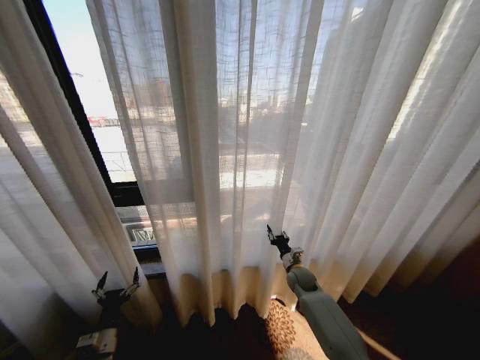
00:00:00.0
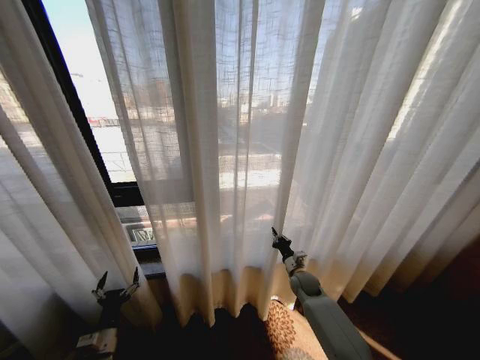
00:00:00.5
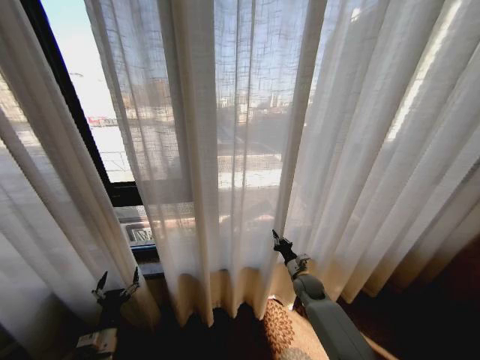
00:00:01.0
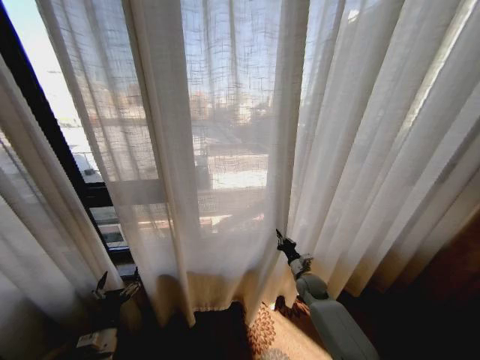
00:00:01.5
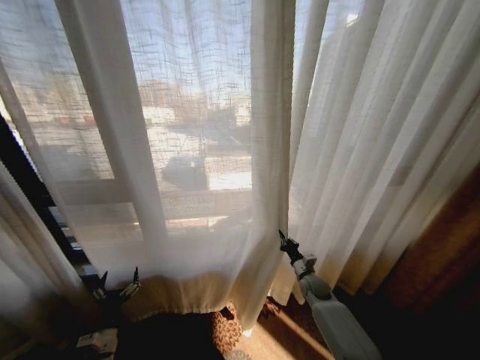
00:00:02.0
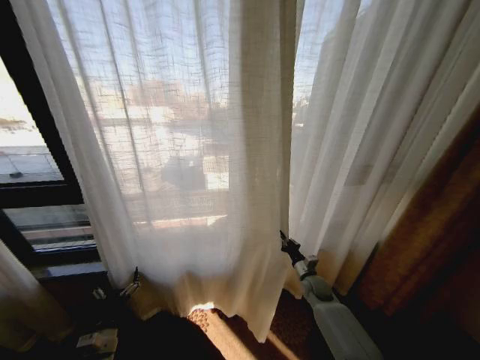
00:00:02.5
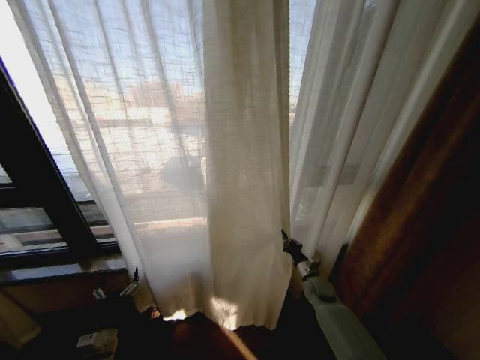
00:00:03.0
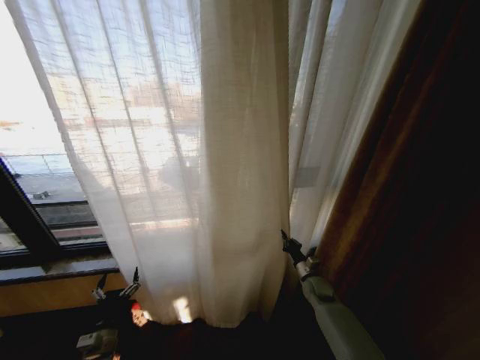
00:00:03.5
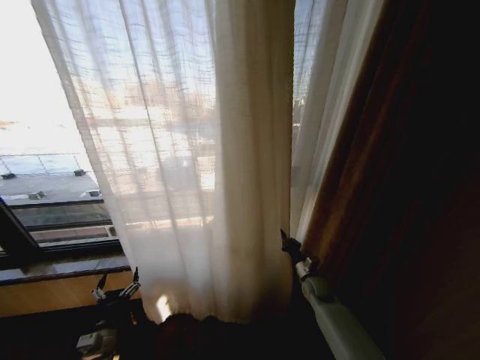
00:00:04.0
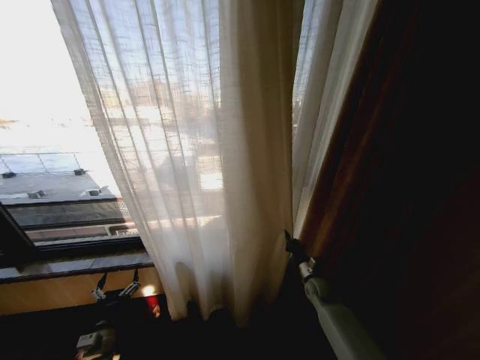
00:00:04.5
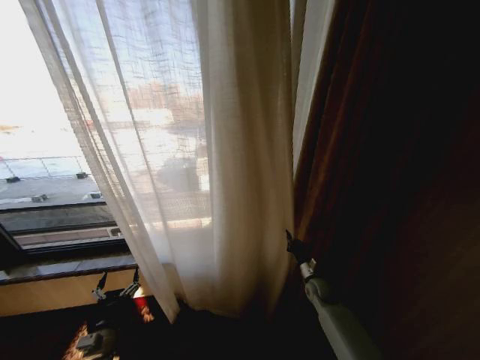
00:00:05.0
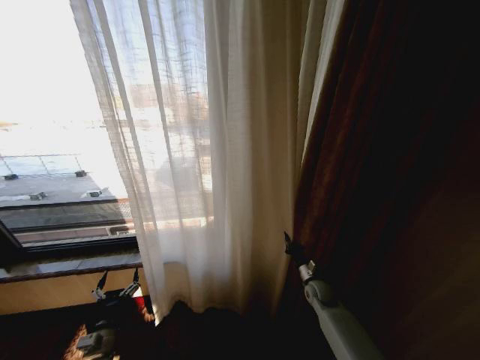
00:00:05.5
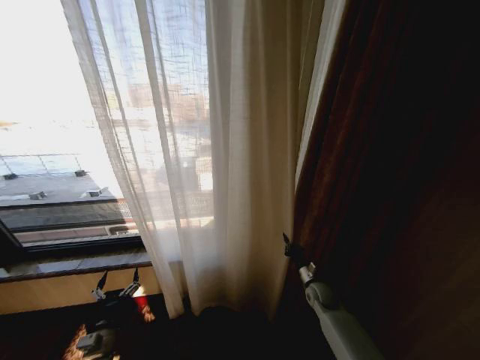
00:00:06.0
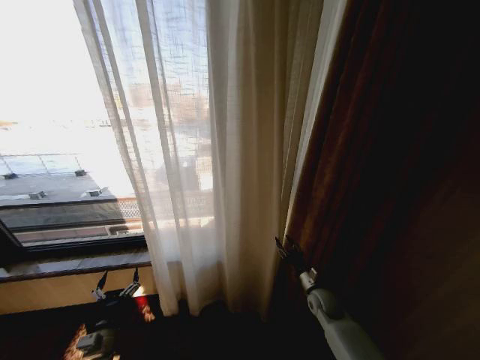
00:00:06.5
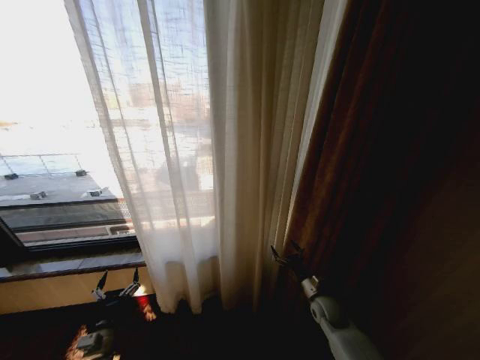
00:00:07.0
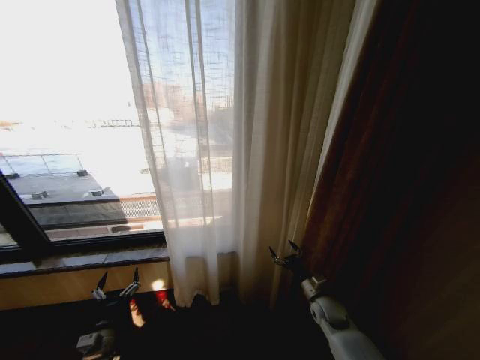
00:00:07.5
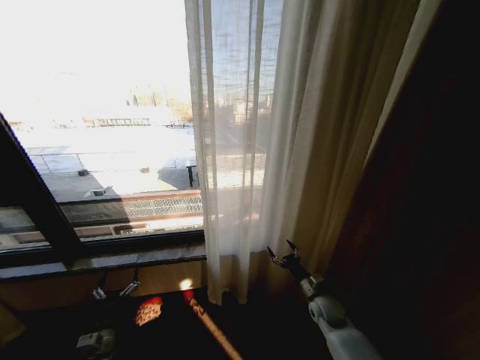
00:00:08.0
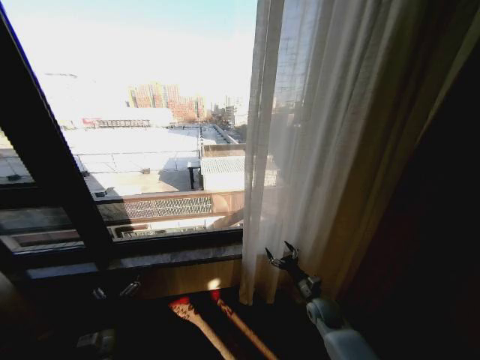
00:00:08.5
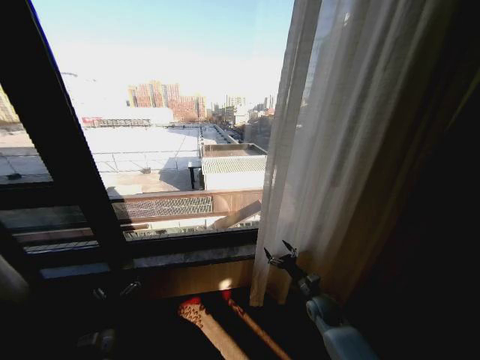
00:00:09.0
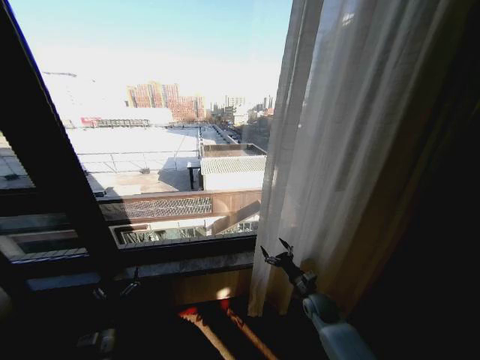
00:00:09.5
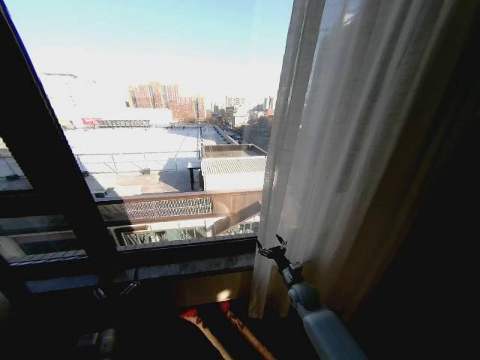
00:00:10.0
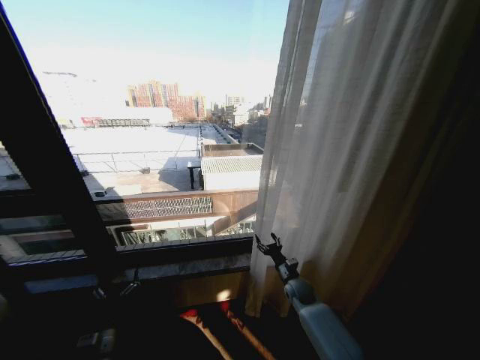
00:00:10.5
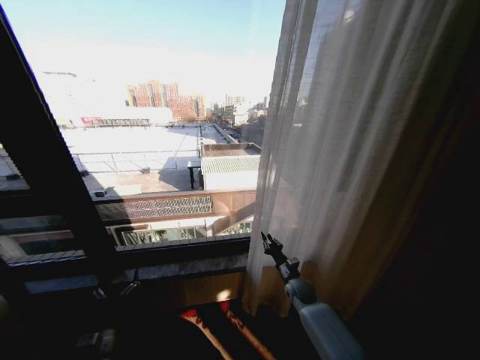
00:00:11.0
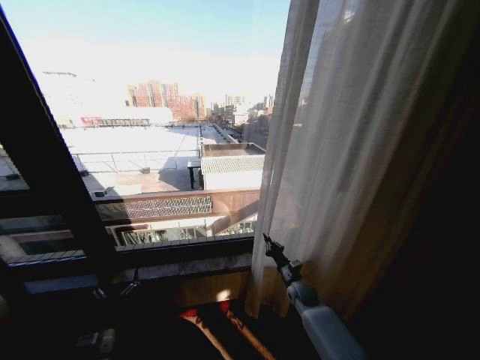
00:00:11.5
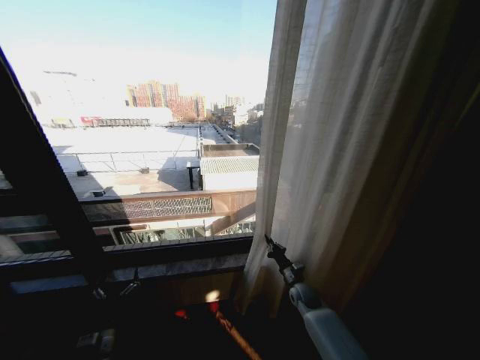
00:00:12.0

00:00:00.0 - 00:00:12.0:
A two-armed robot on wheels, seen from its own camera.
Task of the whole recording: Open the curtains by pulling them apart, changing their state from closed to fully open.
00:00:00.0 - 00:00:02.0: The right gripper ends up about 5 cm from where it was, and closes up.
00:00:06.0 - 00:00:08.0: The right gripper opens its fingers.
00:00:08.0 - 00:00:10.0: The right gripper is displaced to the left by some 5 cm.
00:00:10.0 - 00:00:12.0: The right gripper closes up.

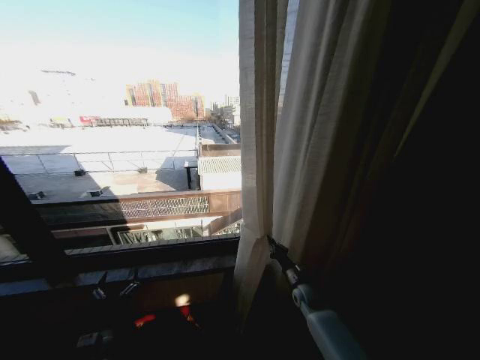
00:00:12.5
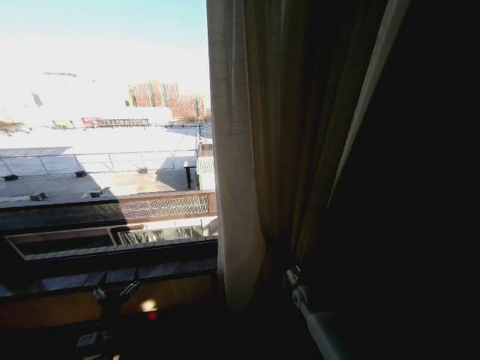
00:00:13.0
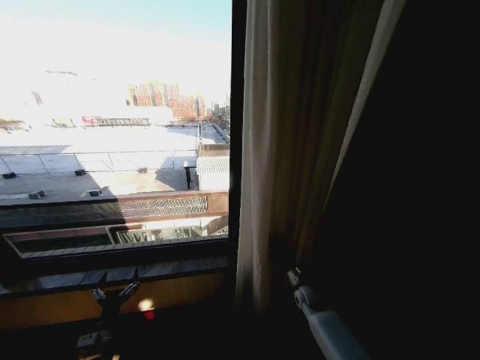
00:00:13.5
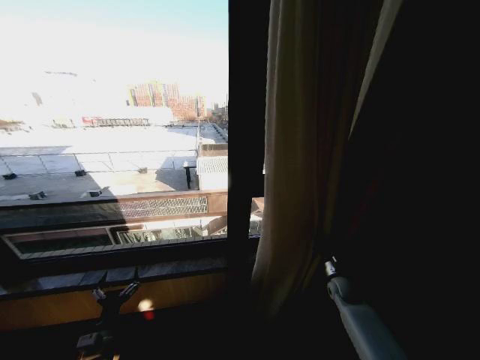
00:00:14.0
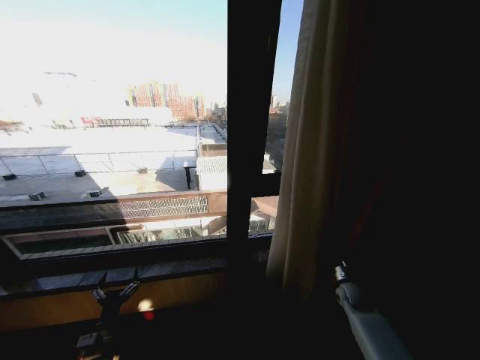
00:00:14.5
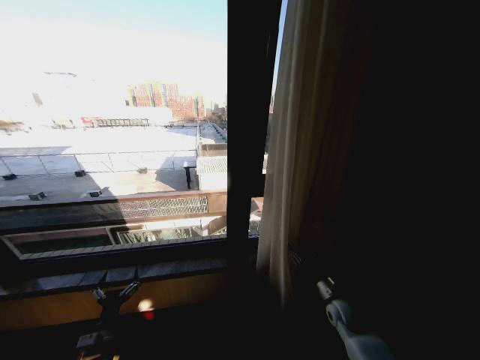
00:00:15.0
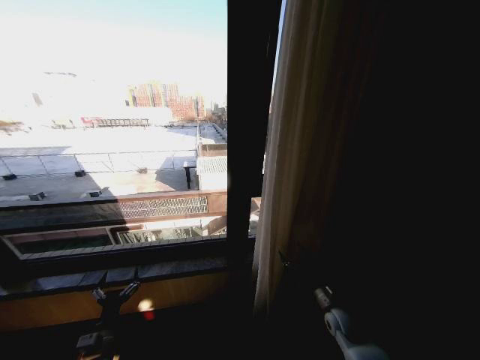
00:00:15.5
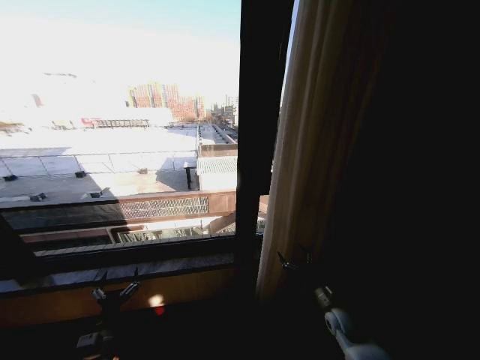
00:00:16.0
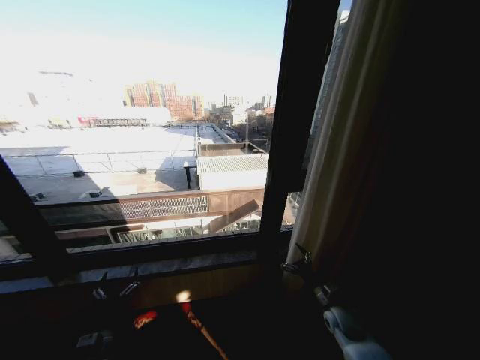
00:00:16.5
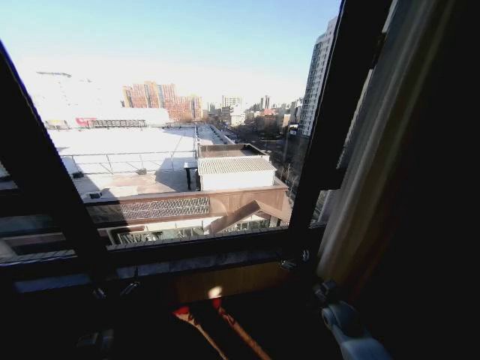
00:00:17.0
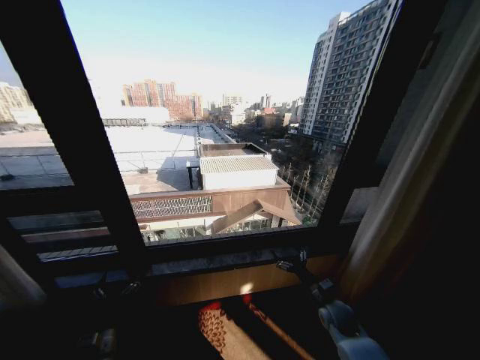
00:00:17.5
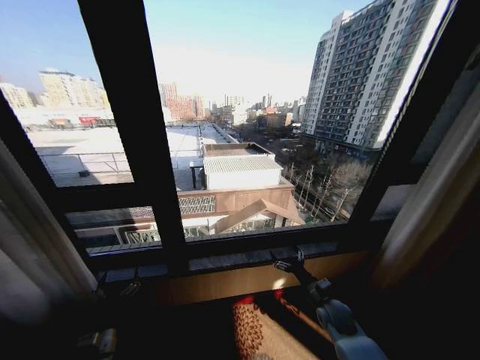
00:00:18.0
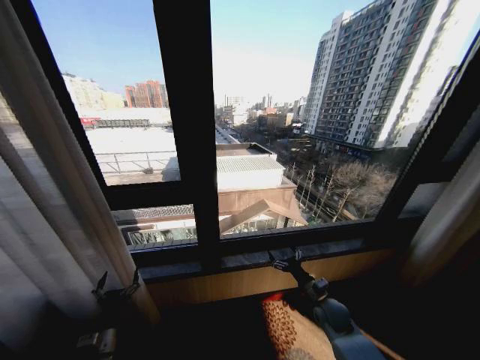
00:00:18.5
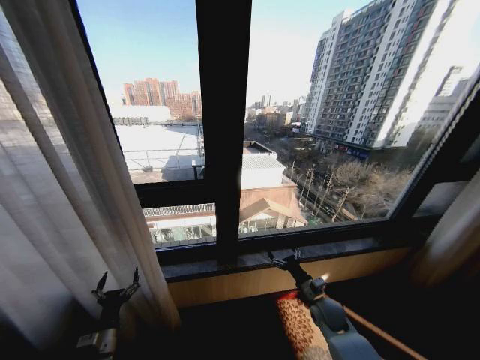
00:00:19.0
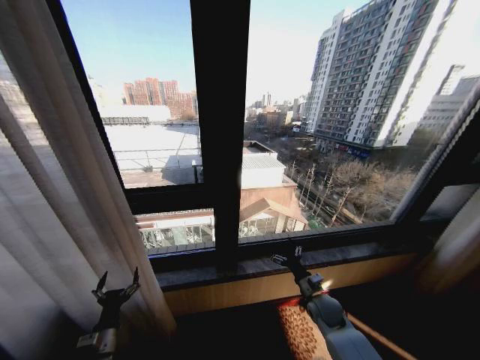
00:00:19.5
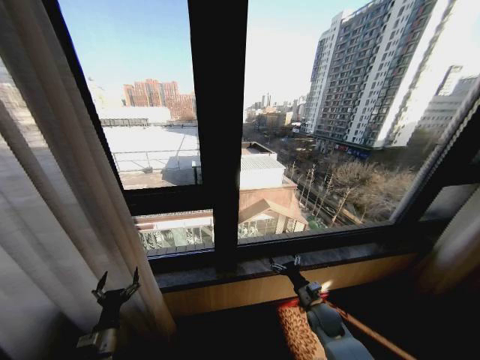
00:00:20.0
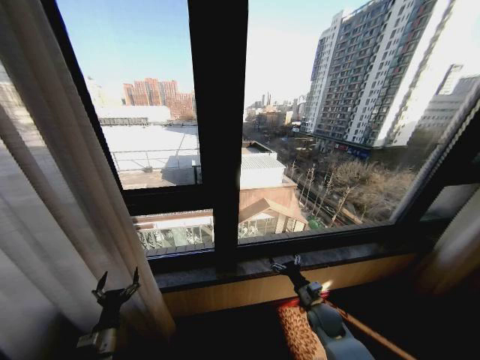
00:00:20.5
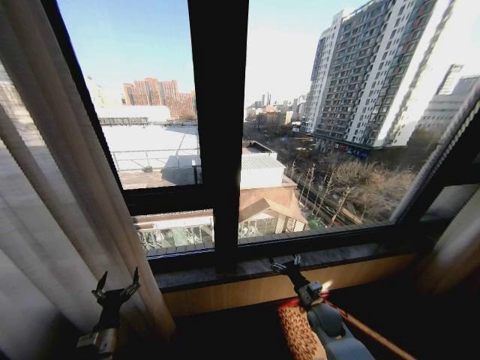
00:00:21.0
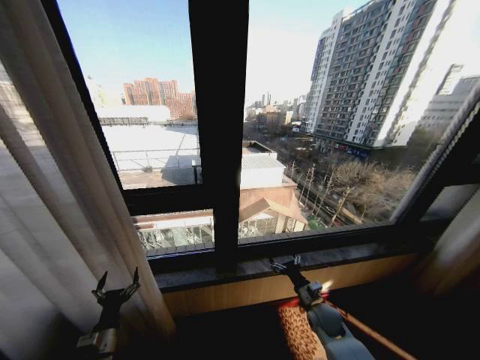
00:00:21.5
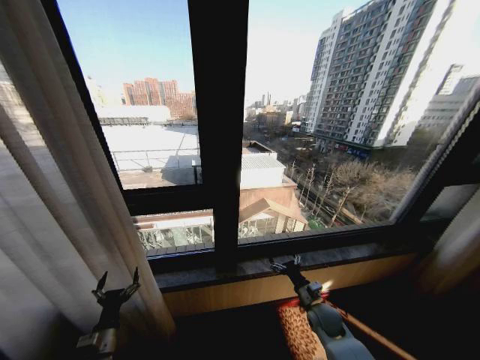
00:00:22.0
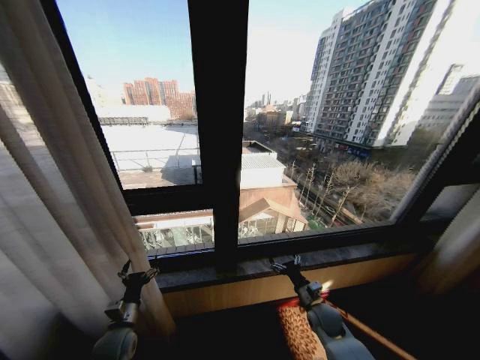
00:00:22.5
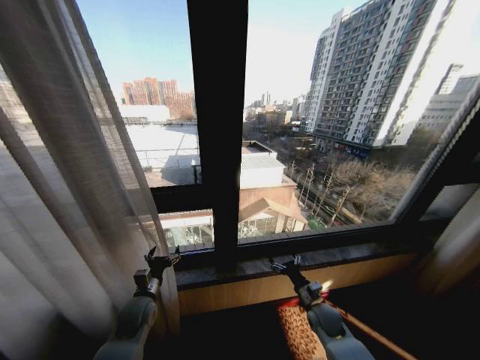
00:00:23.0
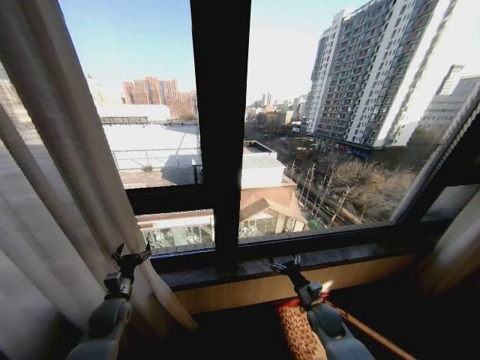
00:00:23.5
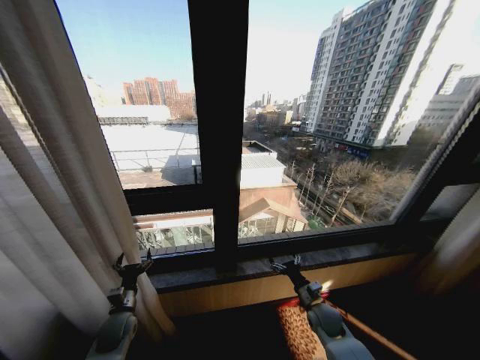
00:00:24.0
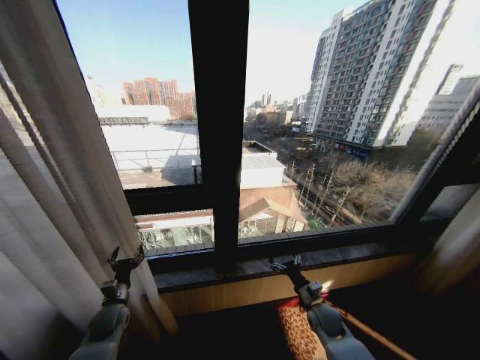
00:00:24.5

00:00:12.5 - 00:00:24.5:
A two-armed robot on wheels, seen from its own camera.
Task of the whole recording: Open the curtains by pulling them apart, changing their state from closed to fully open.
00:00:12.5 - 00:00:14.5: The right gripper goes about 15 cm to the right.
00:00:14.5 - 00:00:16.5: The right gripper is displaced to the left and backward by roughly 10 cm, and opens.
00:00:20.5 - 00:00:22.5: The left gripper goes some 5 cm forward.
00:00:22.5 - 00:00:24.5: The left gripper moves forward and to the left, some 10 cm.

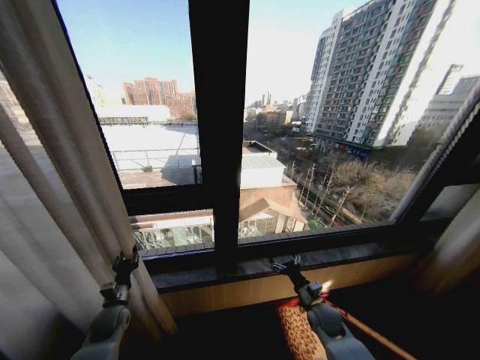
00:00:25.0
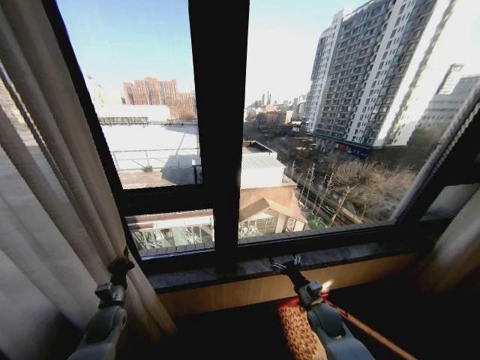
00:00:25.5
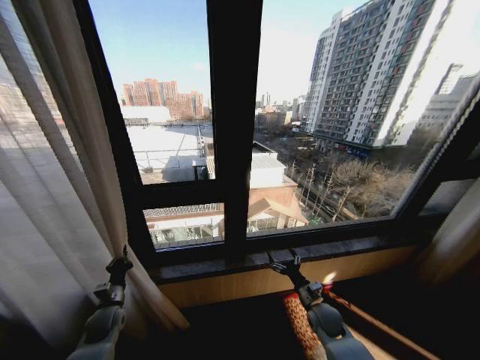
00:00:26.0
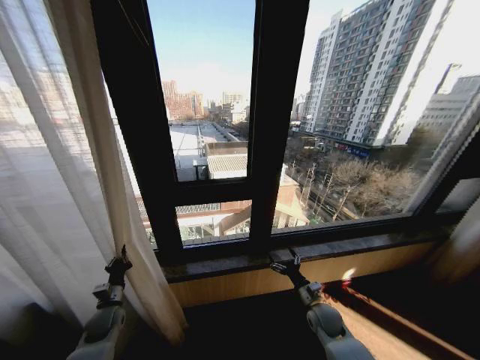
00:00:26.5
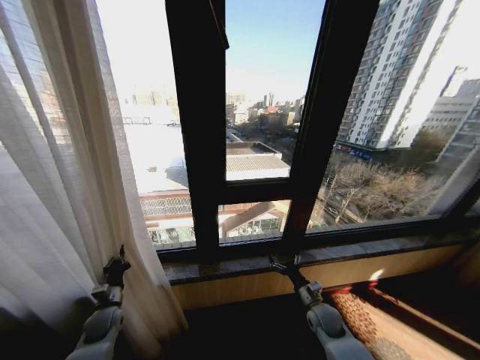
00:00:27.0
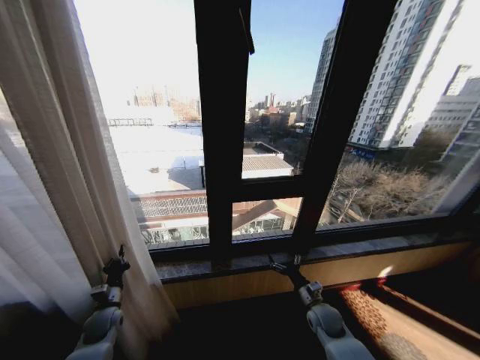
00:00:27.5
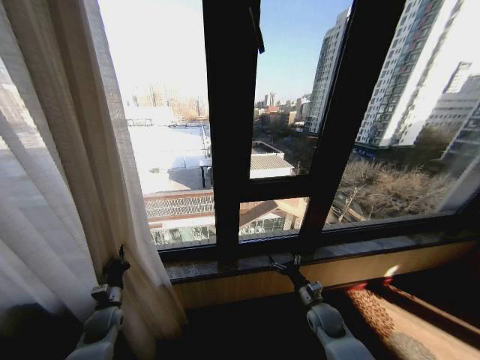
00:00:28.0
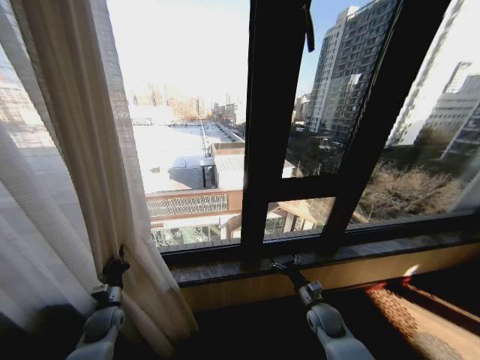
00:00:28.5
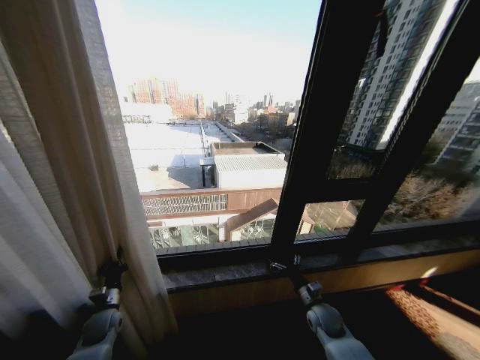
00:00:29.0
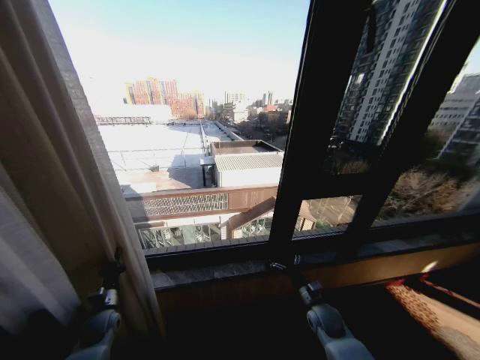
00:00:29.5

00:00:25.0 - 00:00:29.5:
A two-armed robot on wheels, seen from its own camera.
Task of the whole recording: Open the curtains by pulling them apart, changing their state from closed to fully open.
00:00:25.0 - 00:00:27.0: The left gripper closes its fingers.
